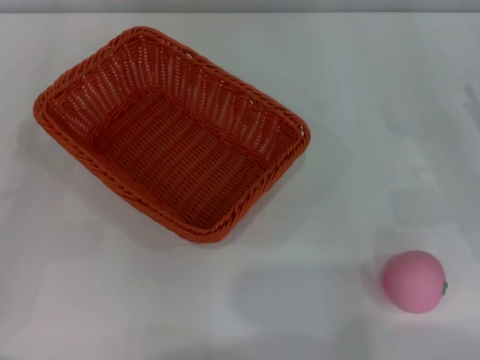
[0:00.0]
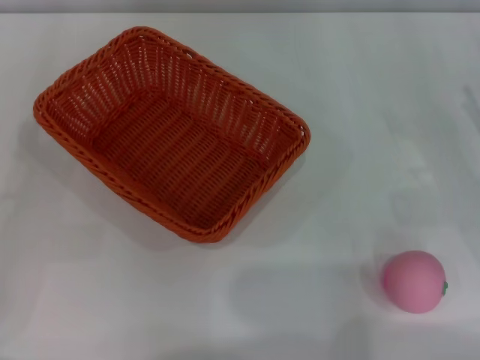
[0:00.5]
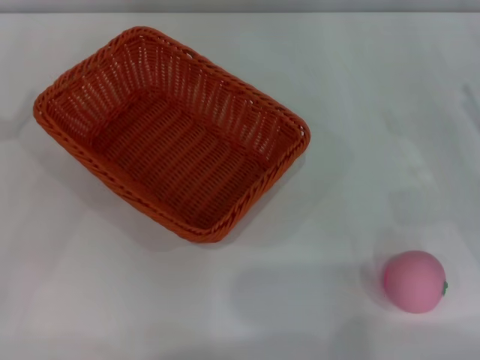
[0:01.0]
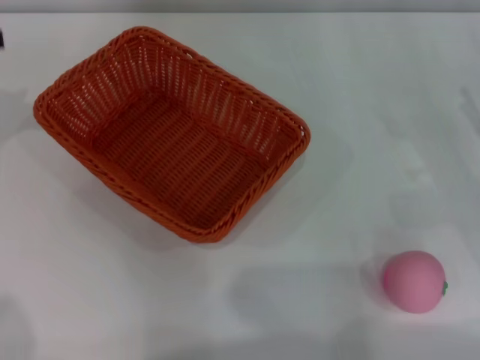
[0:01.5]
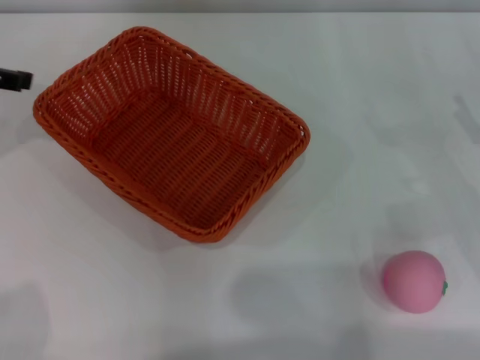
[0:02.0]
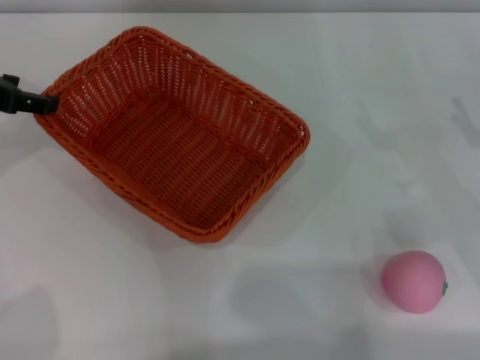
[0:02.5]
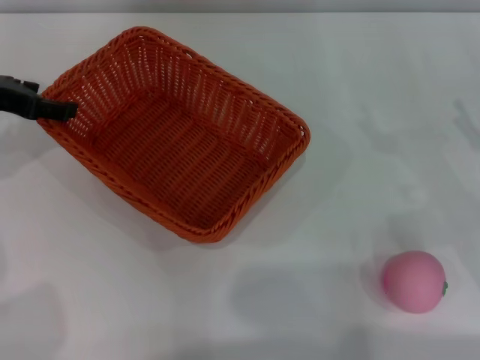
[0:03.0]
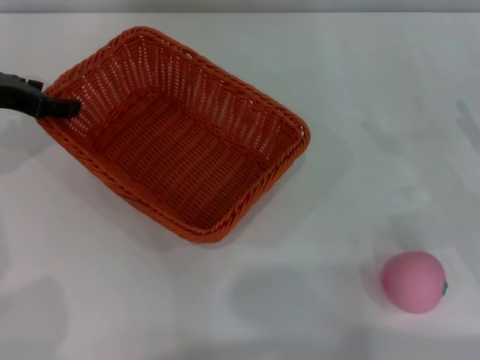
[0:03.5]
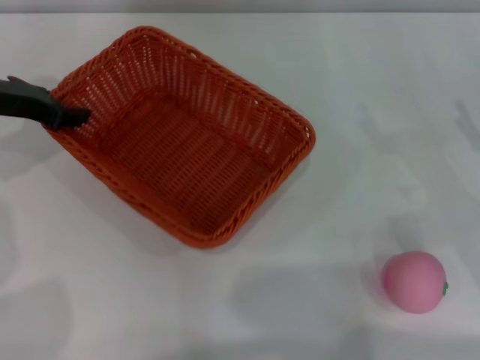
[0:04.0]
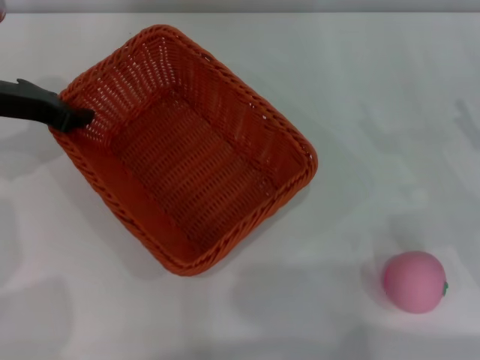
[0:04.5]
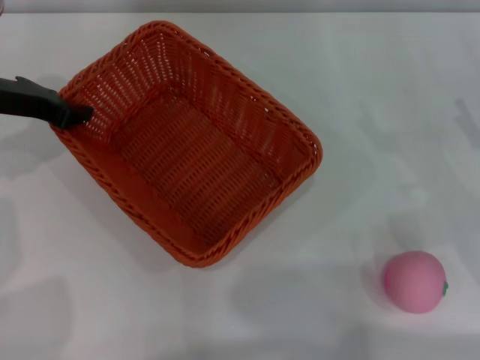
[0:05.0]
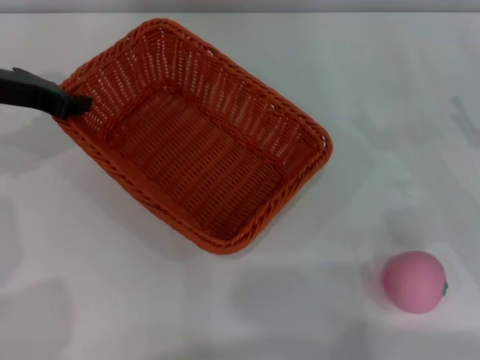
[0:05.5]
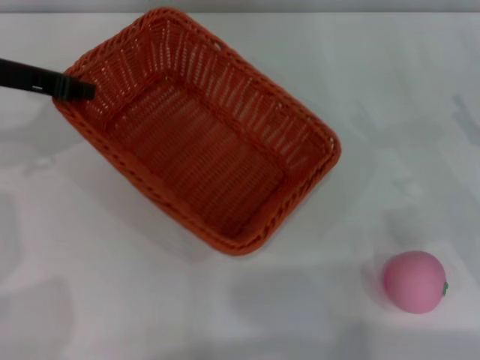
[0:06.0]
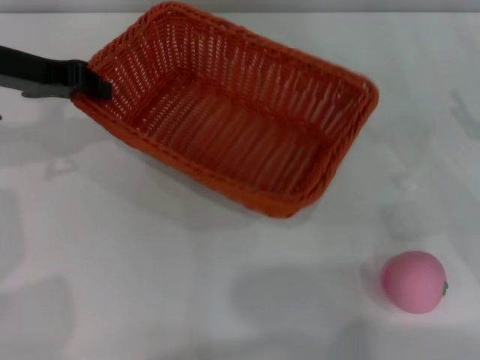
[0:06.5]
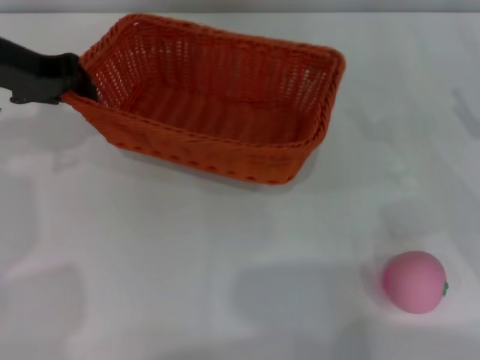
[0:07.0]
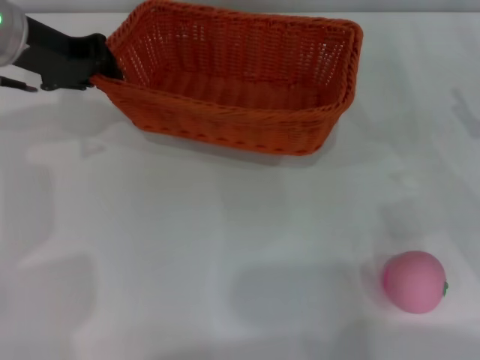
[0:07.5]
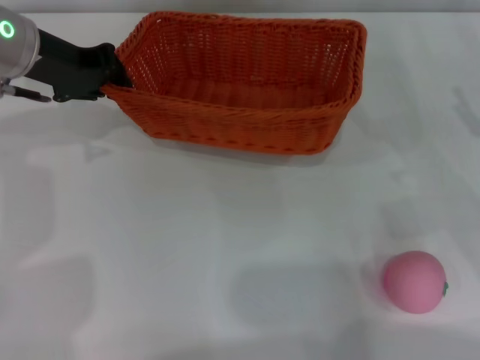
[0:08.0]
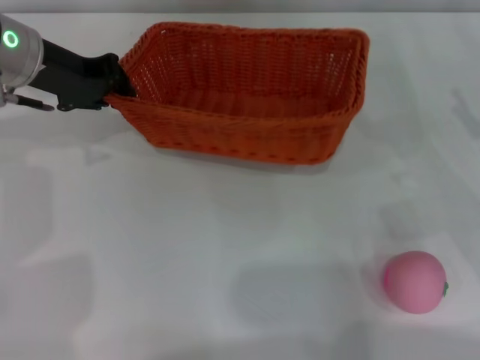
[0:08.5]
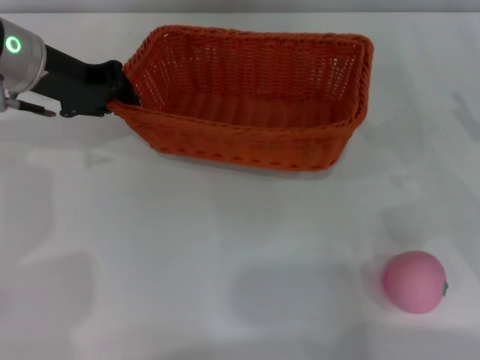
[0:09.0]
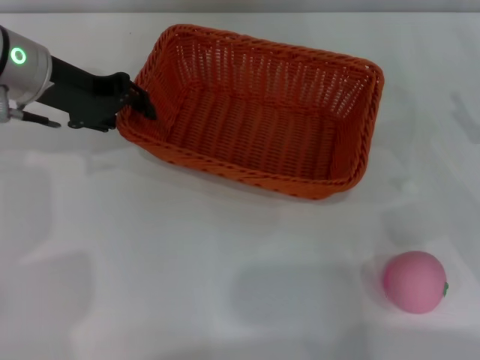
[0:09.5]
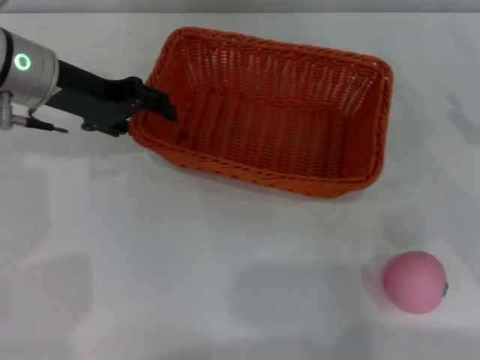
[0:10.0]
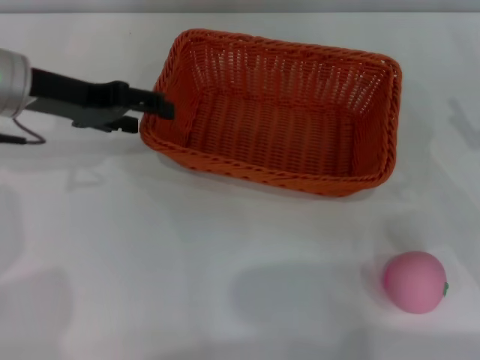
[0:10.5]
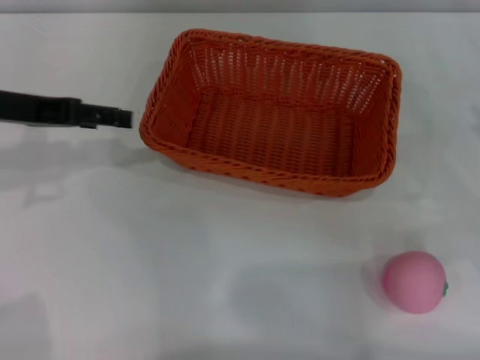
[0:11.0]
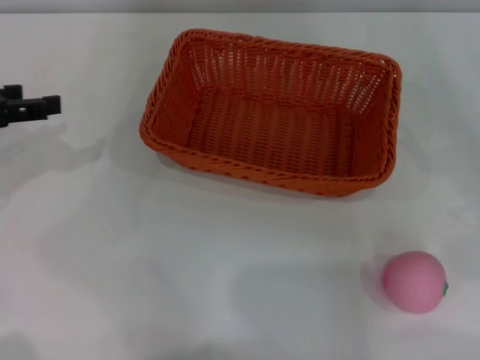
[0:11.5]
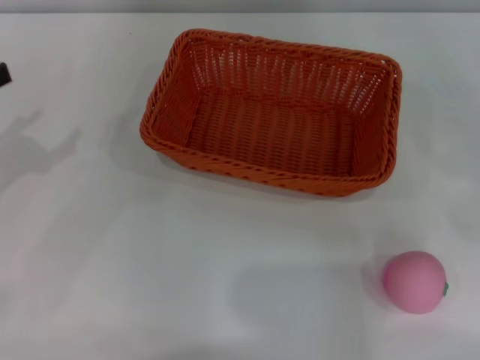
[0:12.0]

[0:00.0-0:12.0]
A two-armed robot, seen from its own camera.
Step, 0:00.0 to 0:05.5: Pick up the light basket with the left gripper.
Step, 0:06.0 to 0:11.0: Place the light basket in the center of view with the right gripper.
0:02.0 to 0:04.0: The left gripper goes about 5 cm downward, and closes its fingers.
0:04.0 to 0:06.0: The left gripper closes.
0:08.0 to 0:10.0: The left gripper opens.
0:10.0 to 0:12.0: The right gripper is displaced to the right and upward by some 15 cm. Meanwhile the left gripper is displaced to the left and backward by some 20 cm, and opens up.

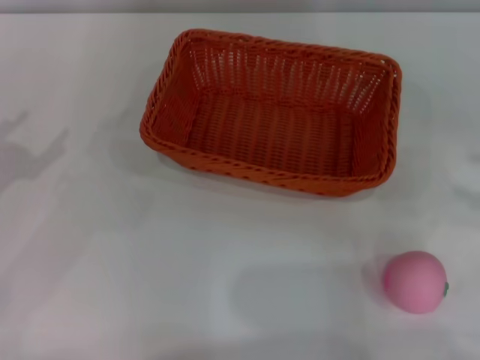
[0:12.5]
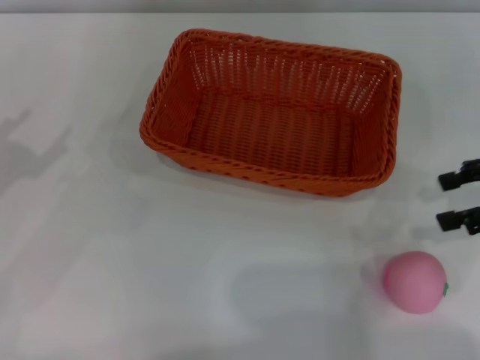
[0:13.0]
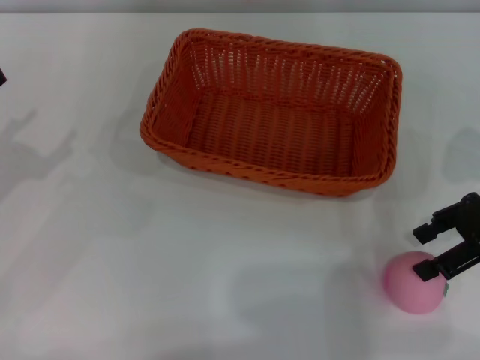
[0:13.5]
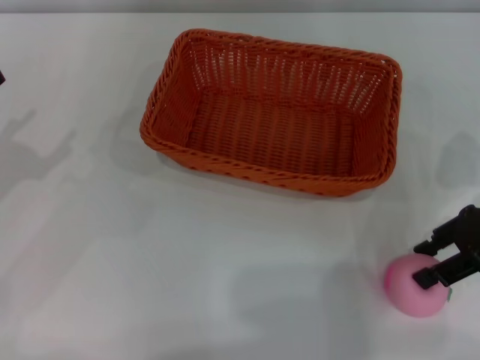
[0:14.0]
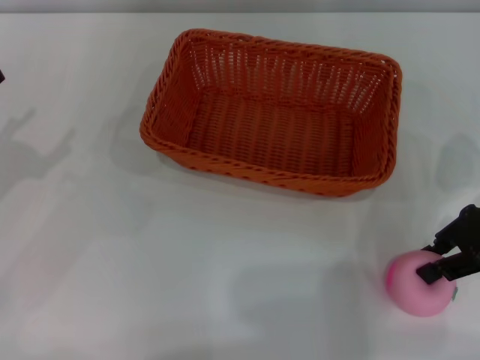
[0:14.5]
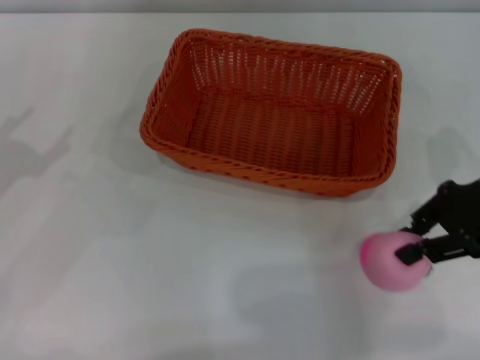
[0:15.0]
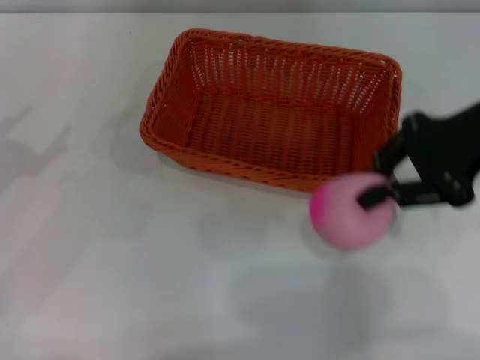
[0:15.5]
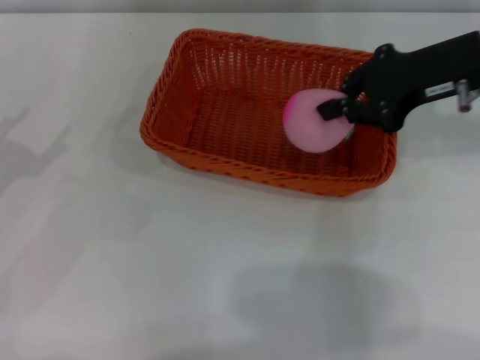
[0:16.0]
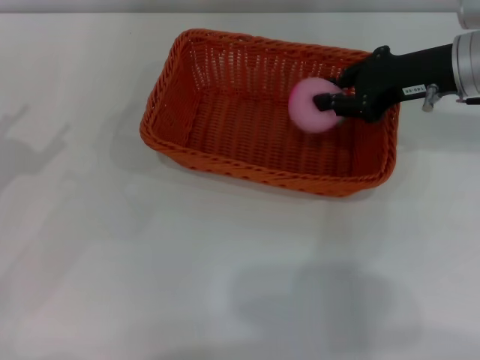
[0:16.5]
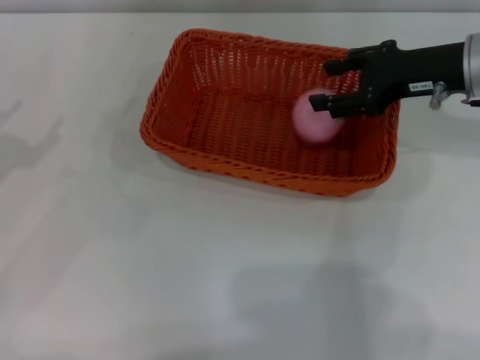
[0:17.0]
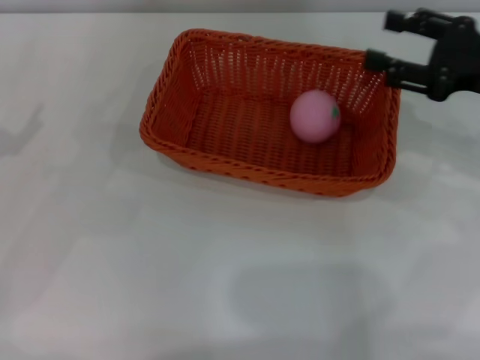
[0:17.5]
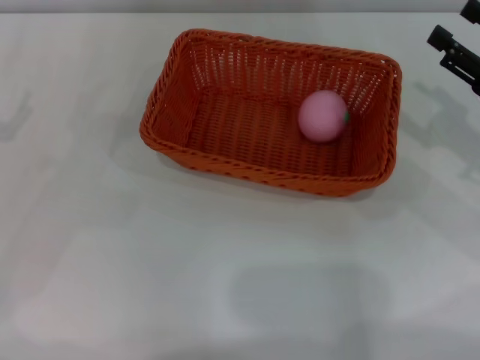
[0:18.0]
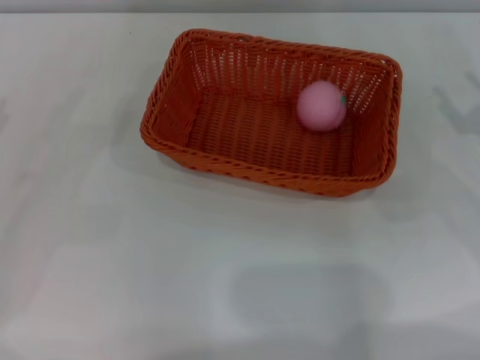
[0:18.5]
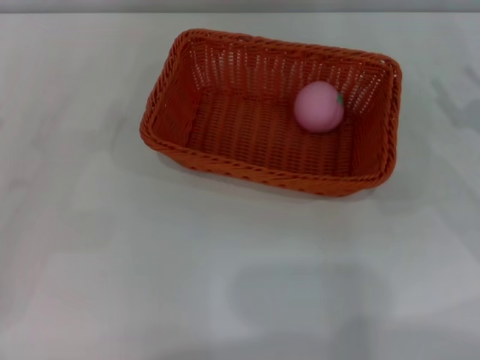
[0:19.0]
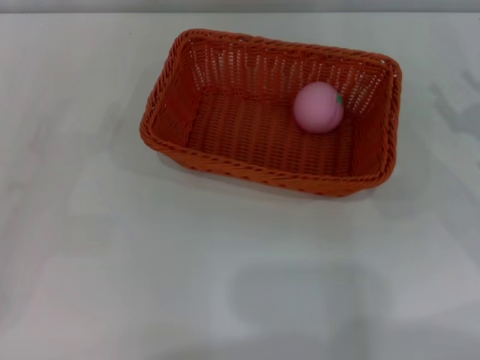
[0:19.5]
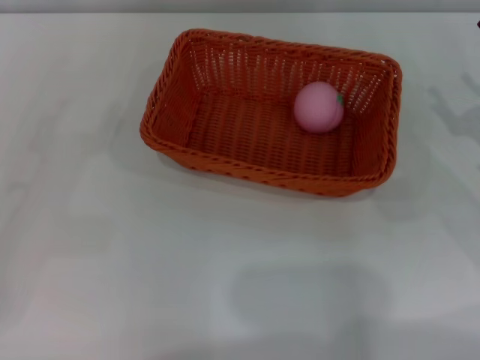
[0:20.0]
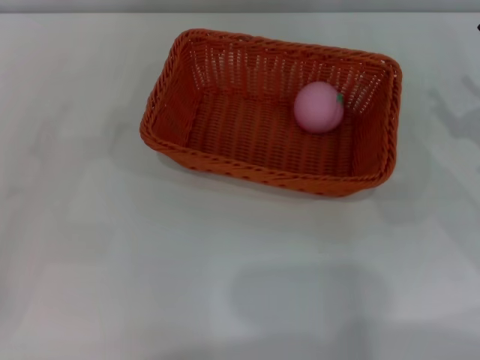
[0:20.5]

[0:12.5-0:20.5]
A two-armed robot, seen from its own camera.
0:12.5 to 0:14.5: The right gripper goes some 10 cm to the left, and closes up.
0:14.5 to 0:16.5: The right gripper is displaced forward and to the left by about 10 cm, and closes up.
0:16.5 to 0:18.5: The right gripper is displaced to the right, backward and downward by some 15 cm, and opens its fingers.

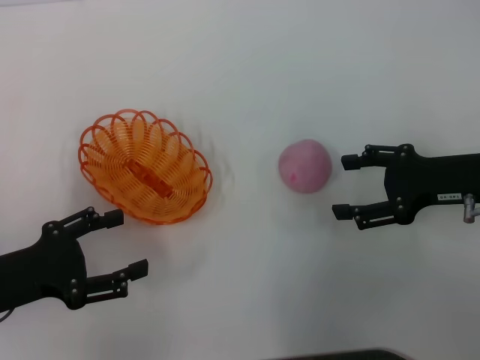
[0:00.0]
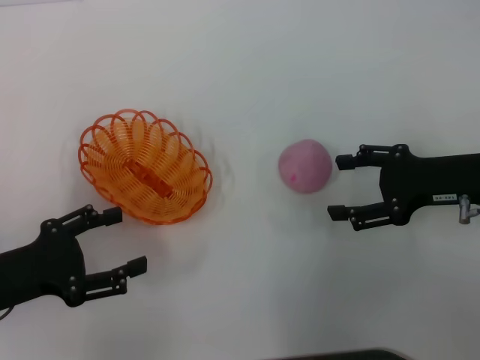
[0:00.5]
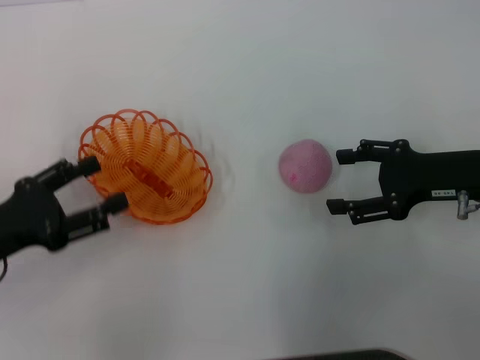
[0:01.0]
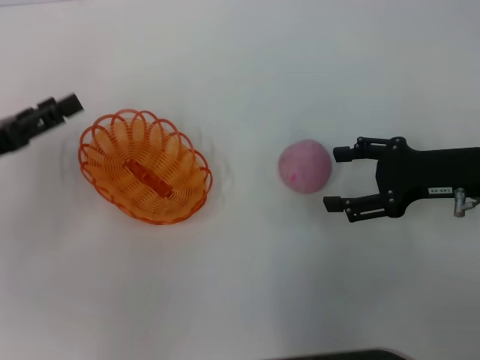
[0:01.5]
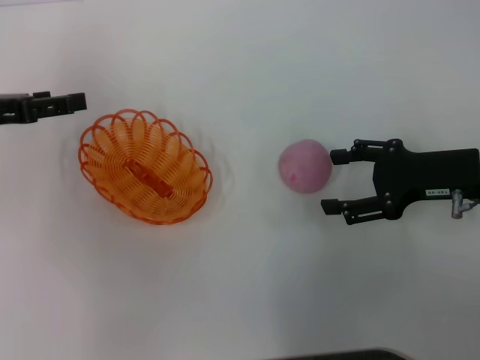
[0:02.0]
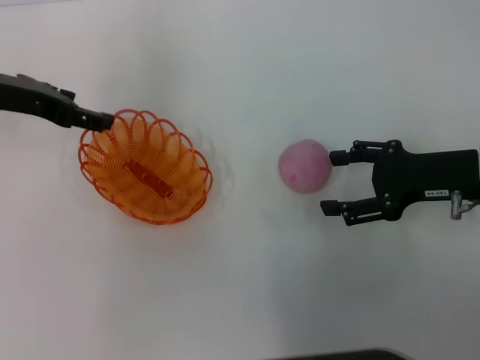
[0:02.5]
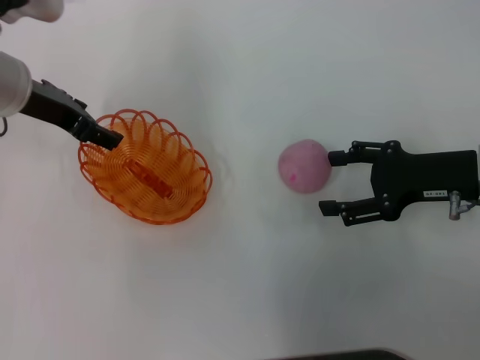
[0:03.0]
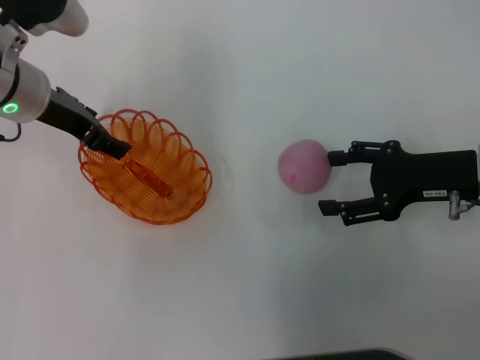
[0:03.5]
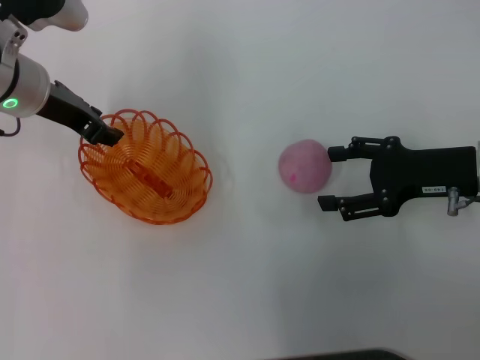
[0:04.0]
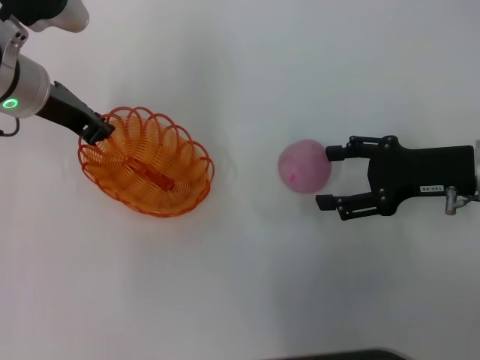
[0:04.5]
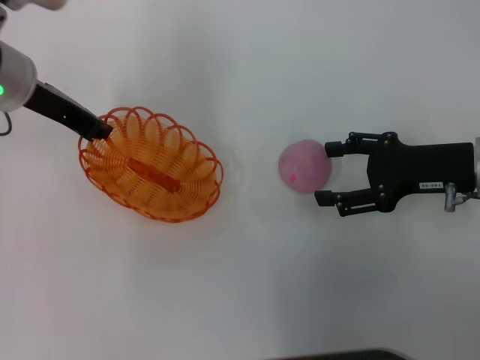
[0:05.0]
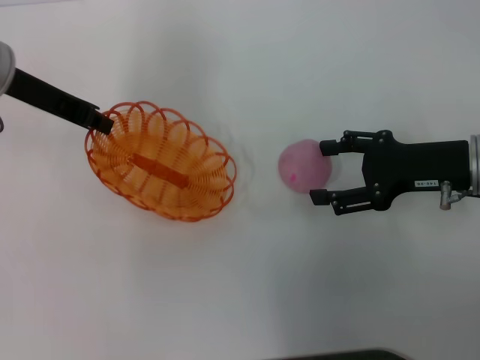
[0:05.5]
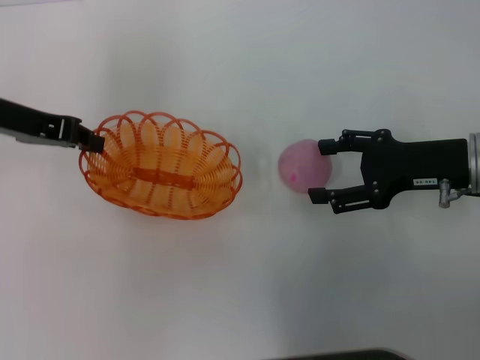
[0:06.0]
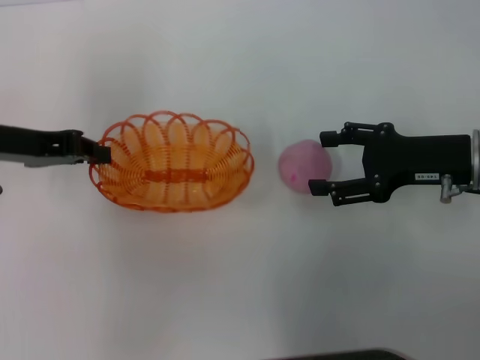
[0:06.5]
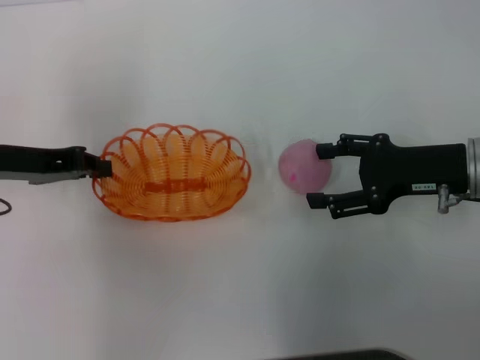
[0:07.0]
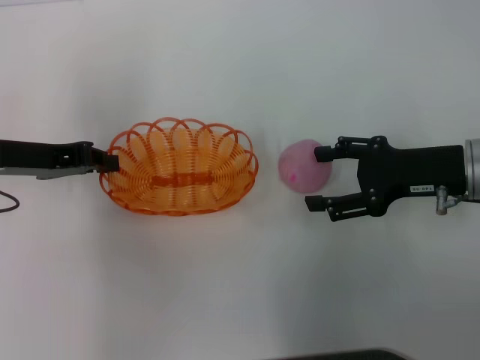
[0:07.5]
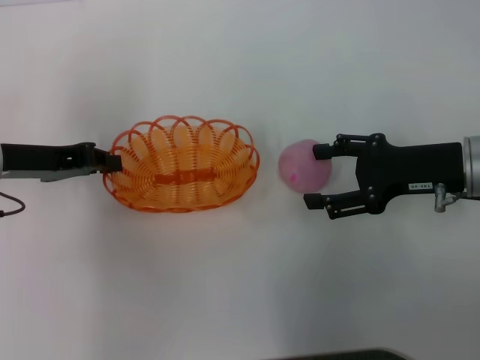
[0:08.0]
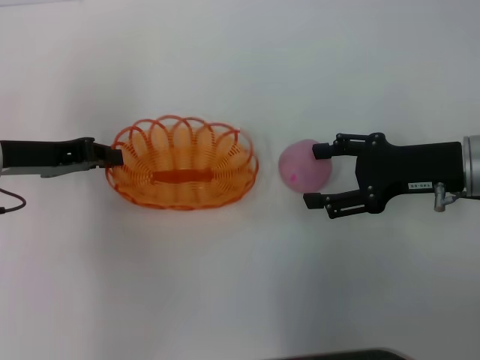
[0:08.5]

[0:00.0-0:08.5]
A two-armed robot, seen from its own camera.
Step, 0:00.0 to 0:05.5: Pick up the basket with the left gripper.
0:00.0 to 0:02.0: The left gripper goes some 15 cm forward and upward.
0:02.0 to 0:04.0: The left gripper is displaced to the right and forward by roughly 10 cm.
0:04.0 to 0:06.5: The left gripper shifts approximately 10 cm to the left and backward, and closes up.
0:06.5 to 0:08.5: The grippers move only a little.
